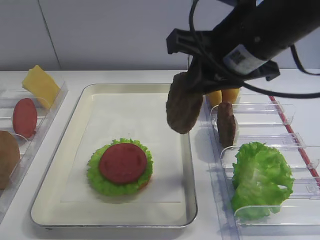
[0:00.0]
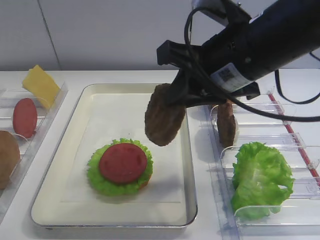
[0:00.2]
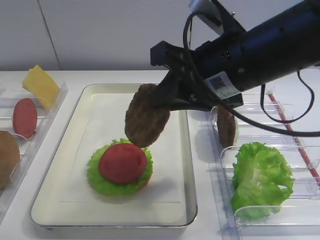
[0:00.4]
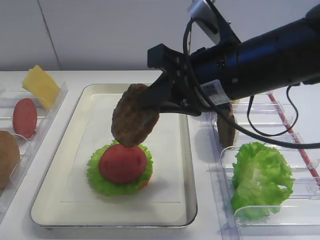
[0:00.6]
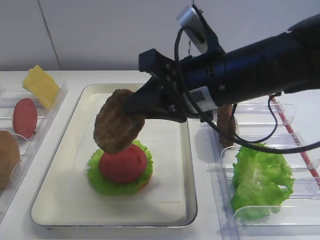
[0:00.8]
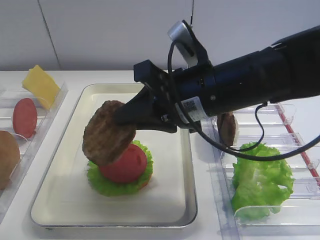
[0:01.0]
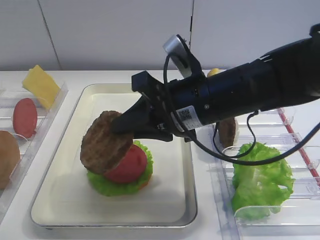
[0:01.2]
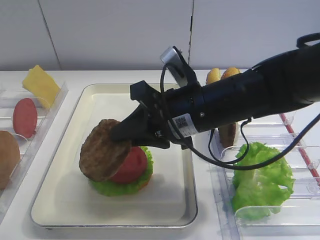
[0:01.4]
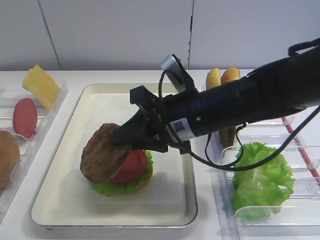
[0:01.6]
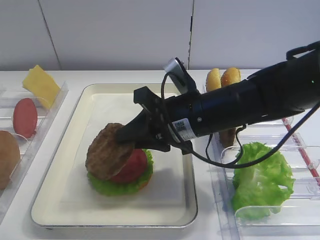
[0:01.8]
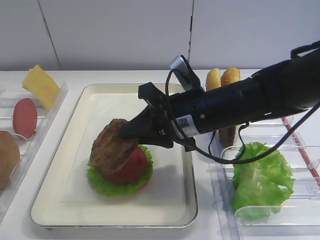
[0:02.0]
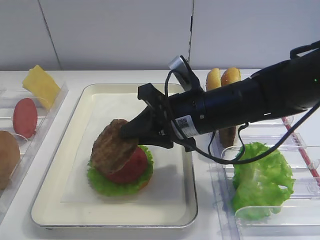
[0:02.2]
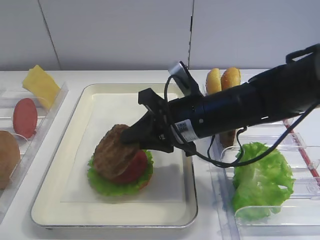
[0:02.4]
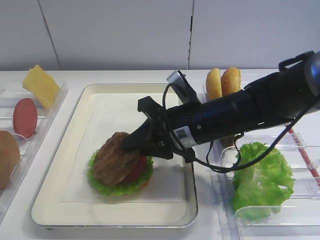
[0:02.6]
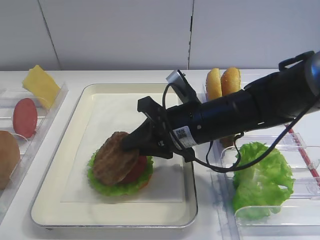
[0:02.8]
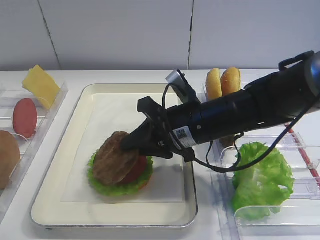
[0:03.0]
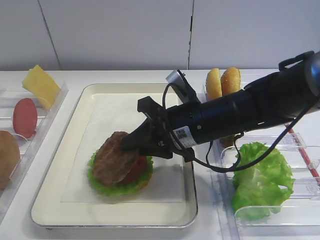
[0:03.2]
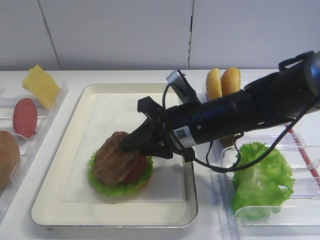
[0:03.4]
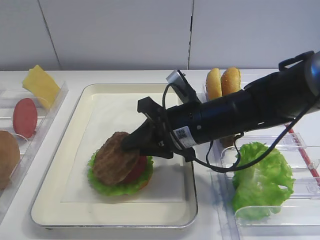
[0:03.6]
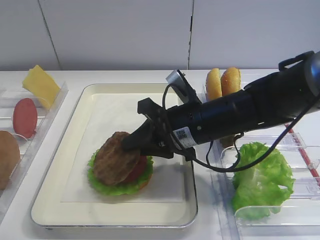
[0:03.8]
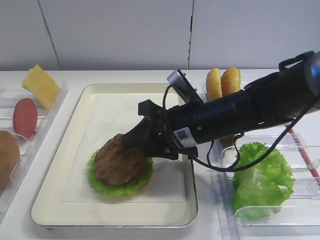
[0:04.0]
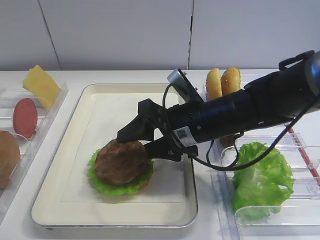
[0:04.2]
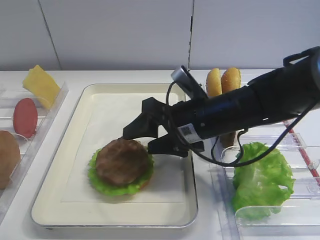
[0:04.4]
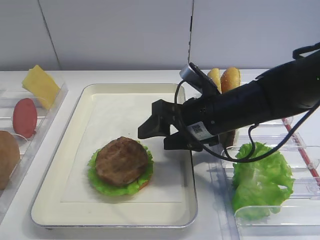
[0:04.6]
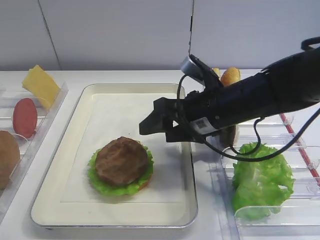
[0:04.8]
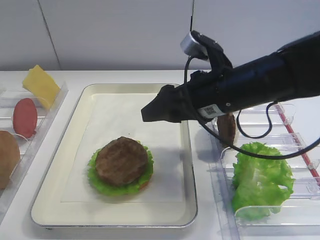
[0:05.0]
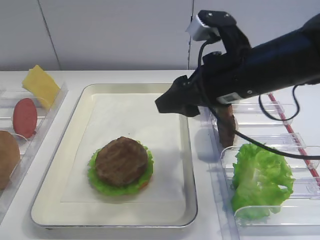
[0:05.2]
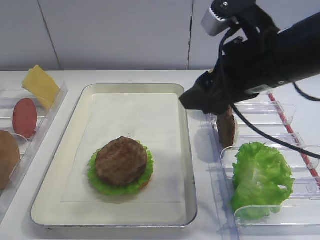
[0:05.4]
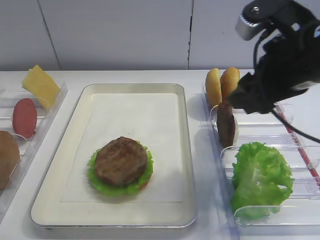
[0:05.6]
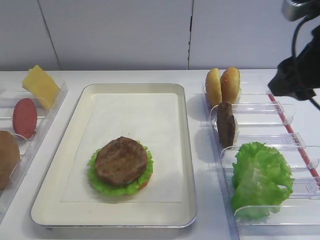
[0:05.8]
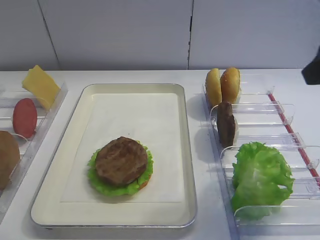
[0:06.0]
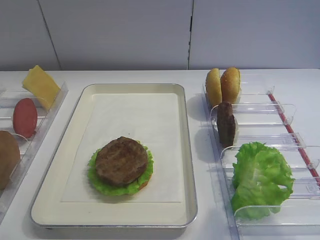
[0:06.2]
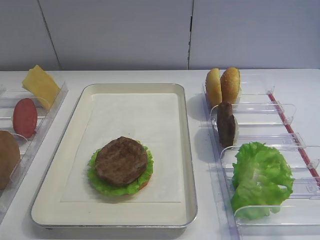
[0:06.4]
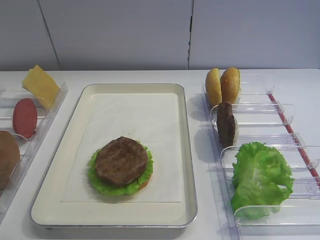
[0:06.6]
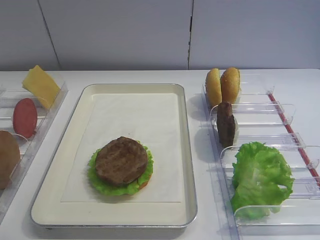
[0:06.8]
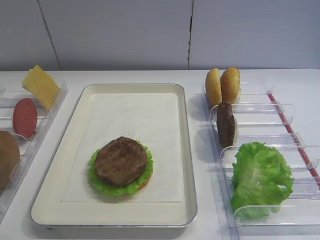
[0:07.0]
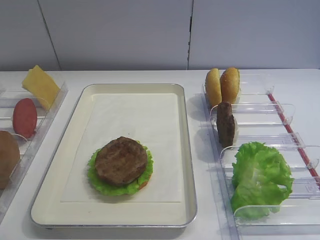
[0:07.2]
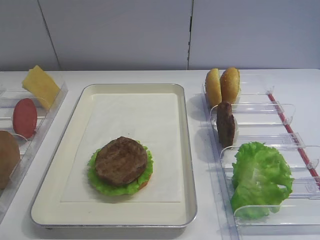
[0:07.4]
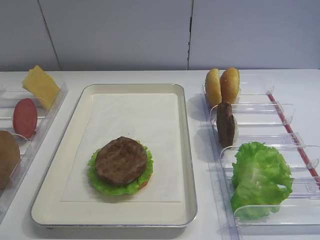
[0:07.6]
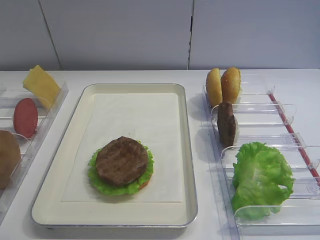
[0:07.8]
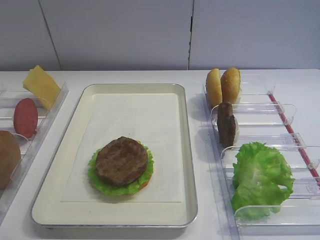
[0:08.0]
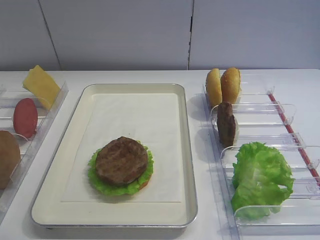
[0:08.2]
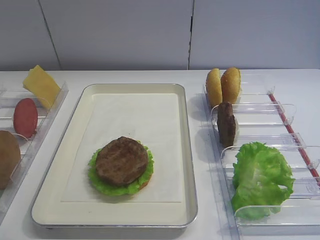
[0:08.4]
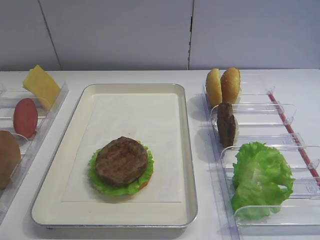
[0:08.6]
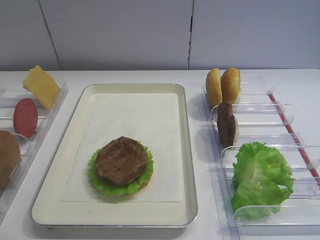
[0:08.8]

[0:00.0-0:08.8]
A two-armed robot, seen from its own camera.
Step, 0.0 to 4.4 s: Place the cutlet on the tomato slice with the right gripper.
0.0 to 1.4 s: The right gripper travels downward and to the left by roughly 10 cm.
1.4 to 3.0 s: The right gripper shifts by roughly 5 cm.
3.0 to 4.4 s: The right gripper opens.
4.4 to 5.8 s: The right gripper heads to the right and upward, covering approximately 20 cm.
5.8 to 7.4 s: The right gripper is displaced backward by roughly 25 cm.

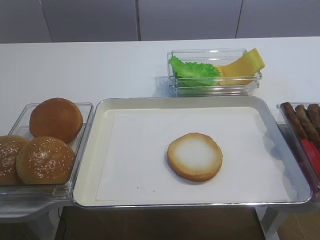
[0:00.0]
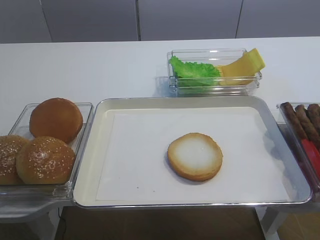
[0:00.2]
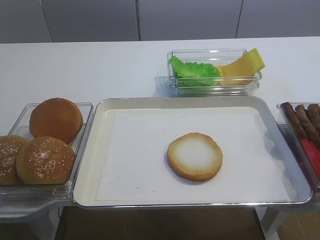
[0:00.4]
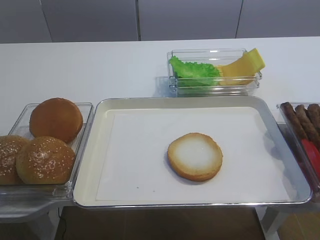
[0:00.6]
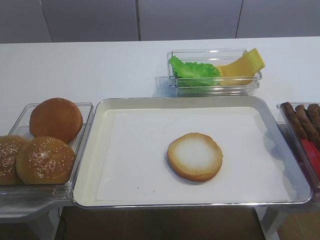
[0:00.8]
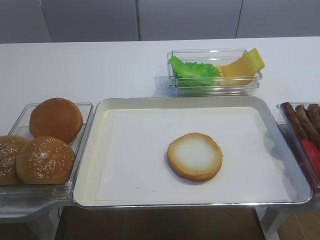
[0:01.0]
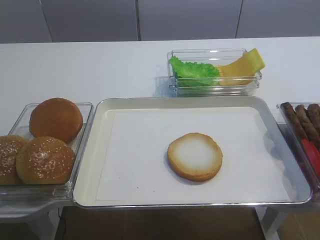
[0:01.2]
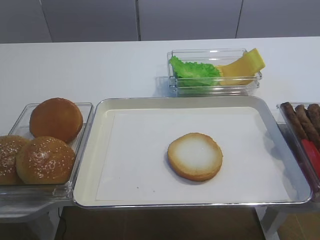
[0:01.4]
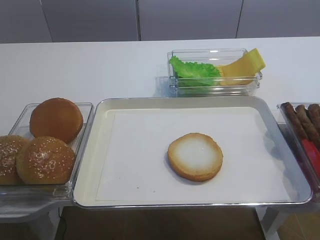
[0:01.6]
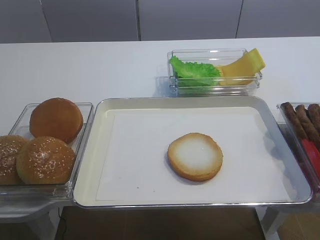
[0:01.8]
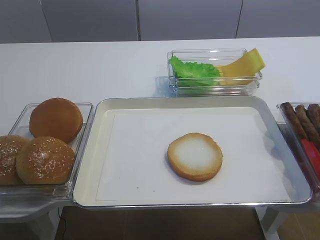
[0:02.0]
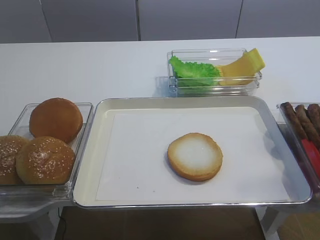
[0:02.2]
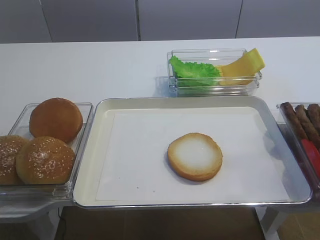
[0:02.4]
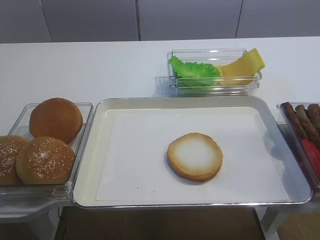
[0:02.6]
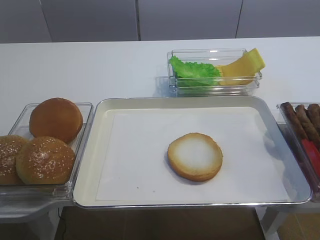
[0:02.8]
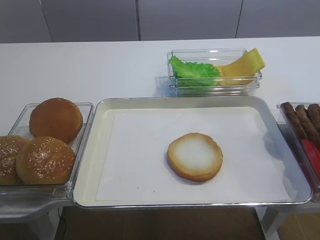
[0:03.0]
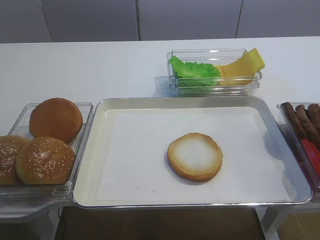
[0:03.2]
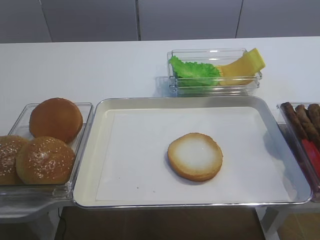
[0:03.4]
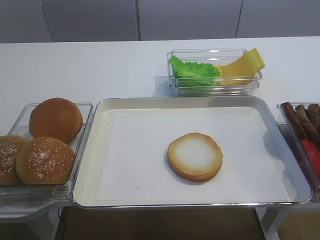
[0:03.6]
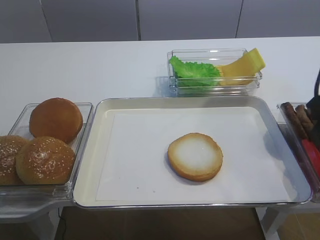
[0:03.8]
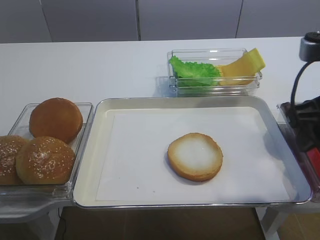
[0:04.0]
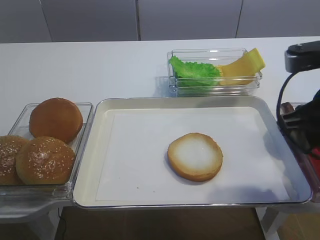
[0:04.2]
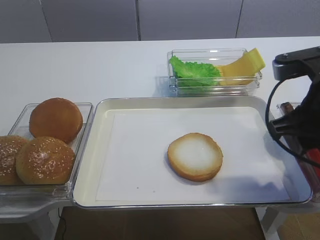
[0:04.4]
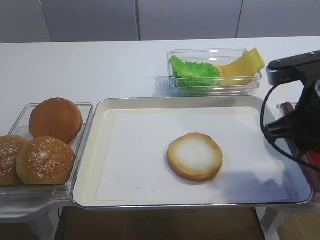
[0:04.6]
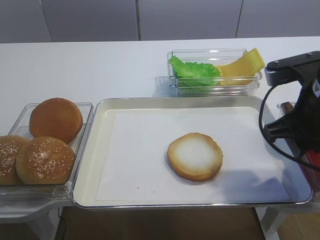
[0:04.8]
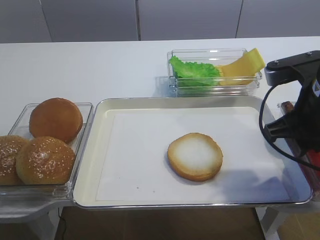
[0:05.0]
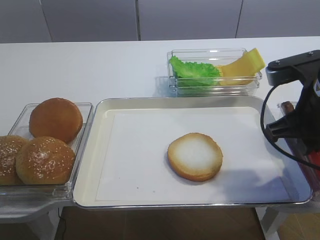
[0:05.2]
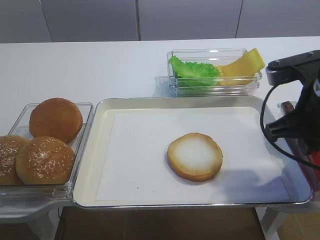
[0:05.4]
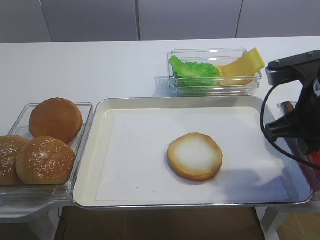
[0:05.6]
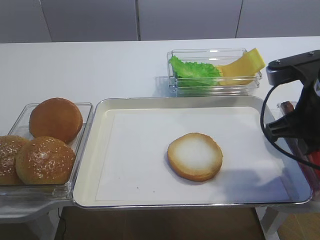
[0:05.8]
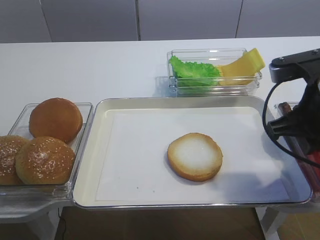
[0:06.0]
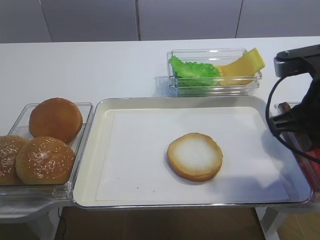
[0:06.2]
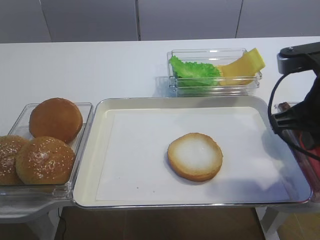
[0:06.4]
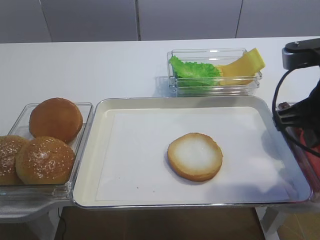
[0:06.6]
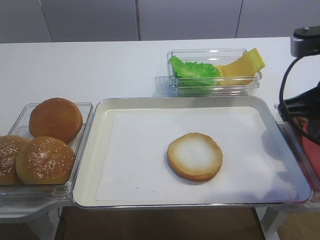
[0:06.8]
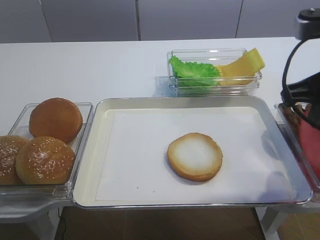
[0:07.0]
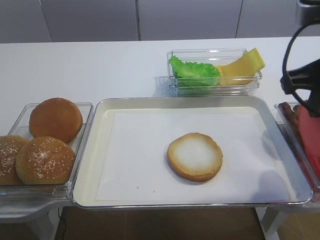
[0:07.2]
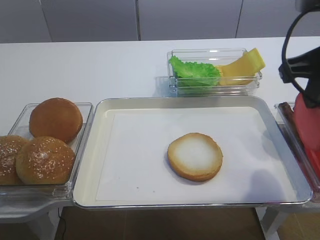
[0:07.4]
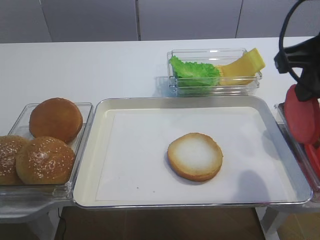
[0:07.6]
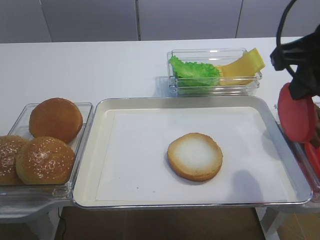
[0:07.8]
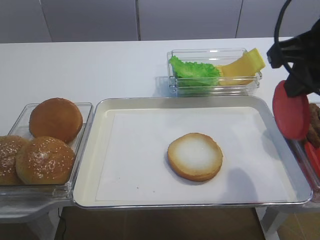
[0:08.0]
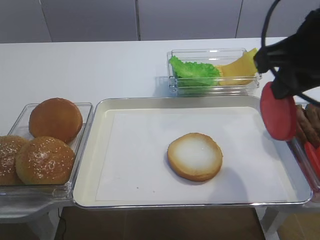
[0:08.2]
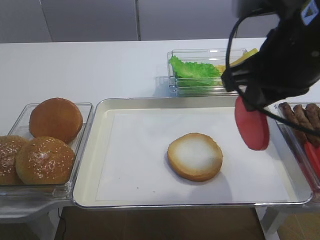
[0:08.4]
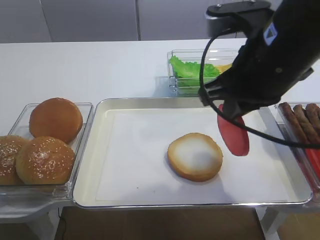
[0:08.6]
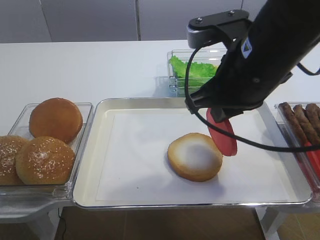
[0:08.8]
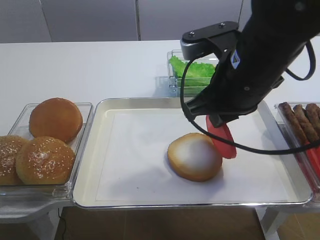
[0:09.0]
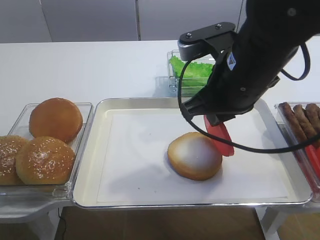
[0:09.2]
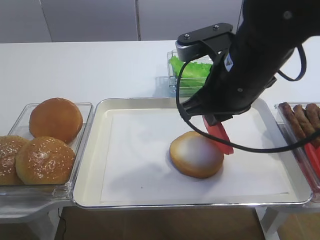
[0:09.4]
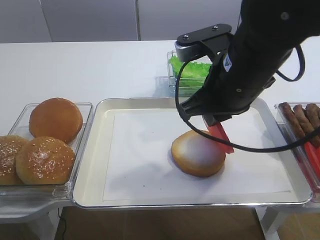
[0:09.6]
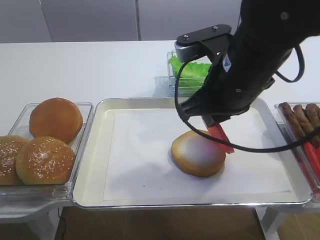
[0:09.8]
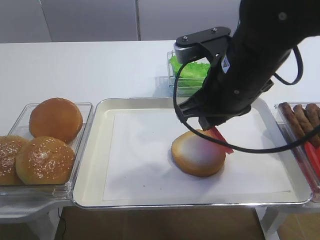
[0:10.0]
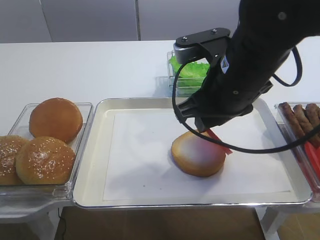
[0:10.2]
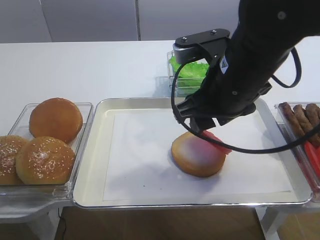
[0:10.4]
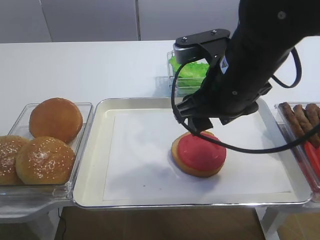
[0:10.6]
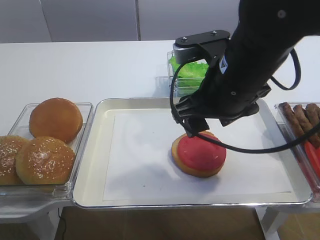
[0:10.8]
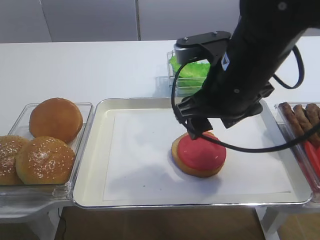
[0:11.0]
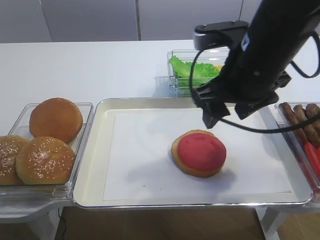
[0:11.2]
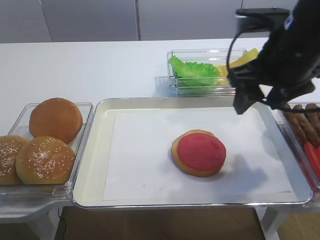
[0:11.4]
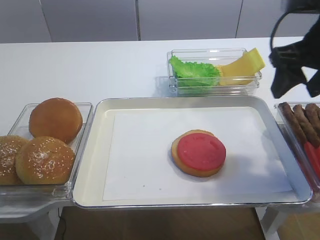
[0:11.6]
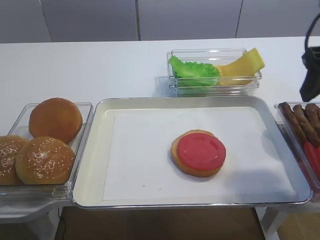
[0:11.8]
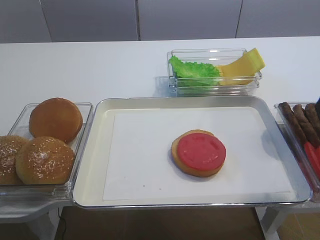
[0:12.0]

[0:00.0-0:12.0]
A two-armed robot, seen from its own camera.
Step, 0.0 to 6.8 s: Pick up the tomato slice with the right gripper.
Step, 7.0 to 10.8 s: Place the tomato slice on the bread slice with the right gripper.
3.0 to 4.4 s: The right gripper is displaced forward and downward by some 10 cm.
4.4 to 6.0 s: The right gripper closes.
6.0 to 7.6 s: The right gripper moves upward, approximately 10 cm.
7.6 to 9.0 s: The right gripper is displaced to the left and downward by roughly 10 cm.
9.0 to 10.4 s: The right gripper opens up.
10.4 to 12.0 s: The right gripper is displaced to the right by about 15 cm.

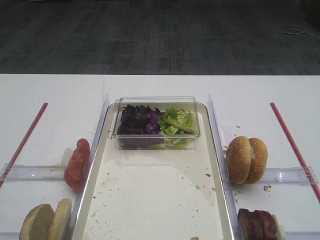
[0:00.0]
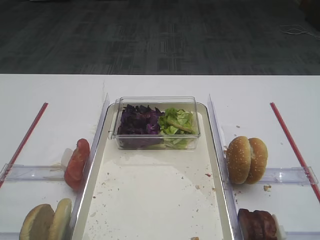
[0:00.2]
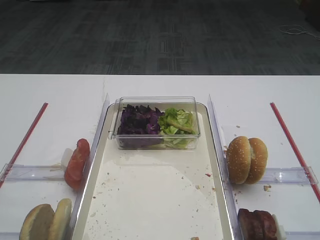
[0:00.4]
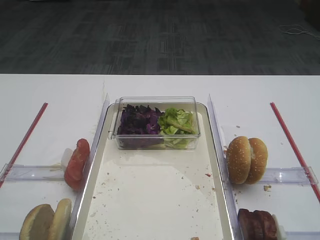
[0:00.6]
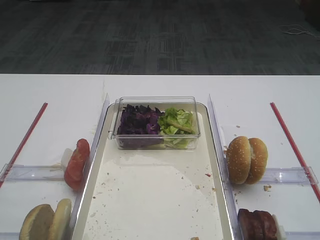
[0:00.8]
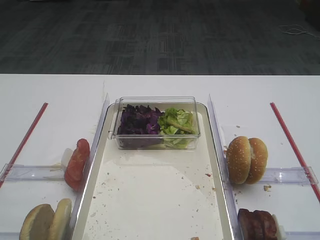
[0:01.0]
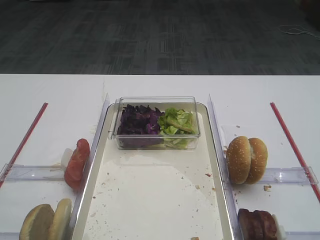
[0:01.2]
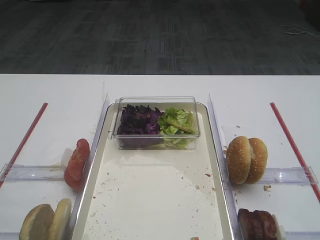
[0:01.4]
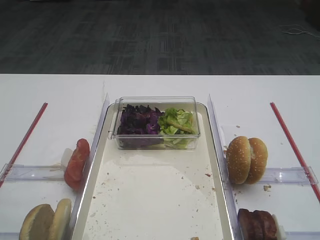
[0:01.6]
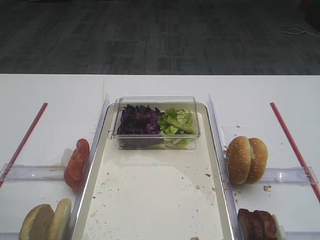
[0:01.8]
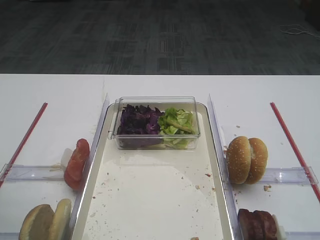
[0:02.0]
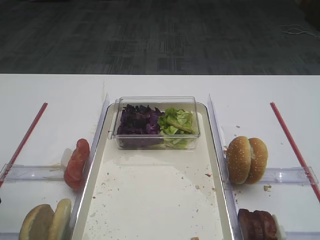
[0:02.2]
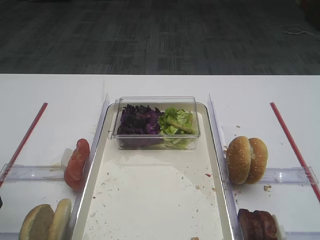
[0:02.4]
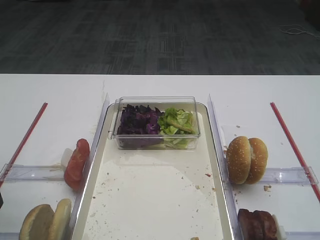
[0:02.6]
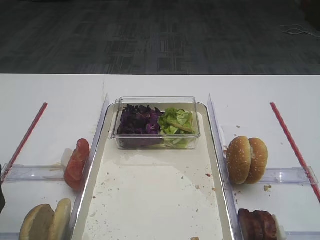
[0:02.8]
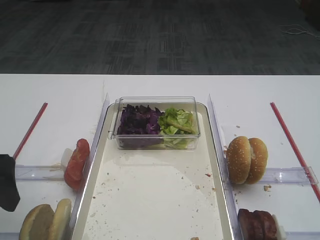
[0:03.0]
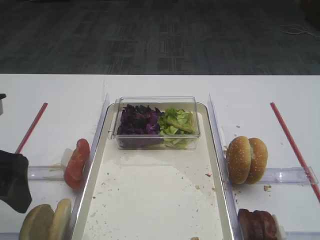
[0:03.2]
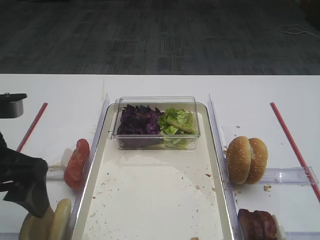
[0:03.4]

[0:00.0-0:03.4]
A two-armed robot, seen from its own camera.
1.6 to 3.4 s: The left gripper goes some 10 cm forward and to the right.
